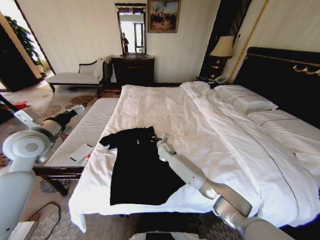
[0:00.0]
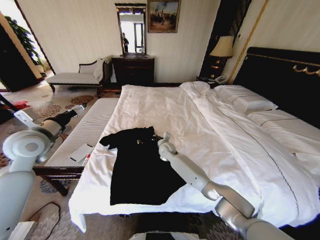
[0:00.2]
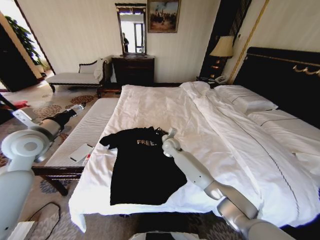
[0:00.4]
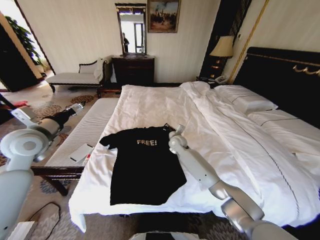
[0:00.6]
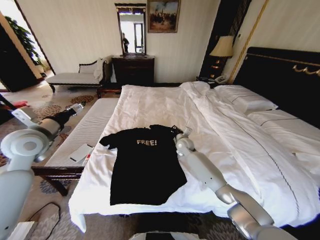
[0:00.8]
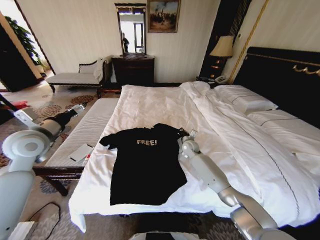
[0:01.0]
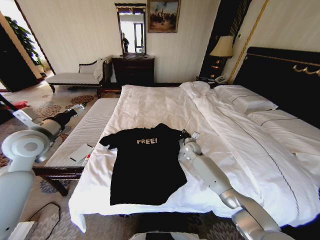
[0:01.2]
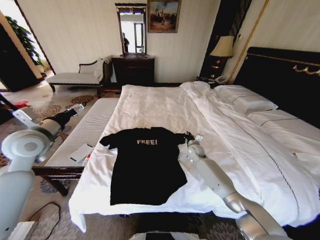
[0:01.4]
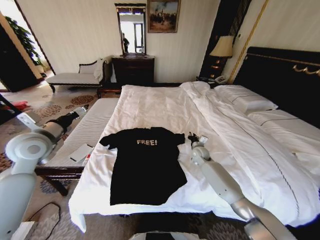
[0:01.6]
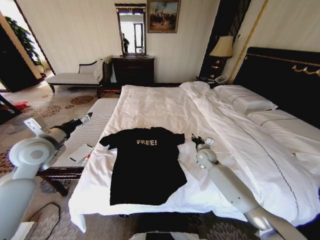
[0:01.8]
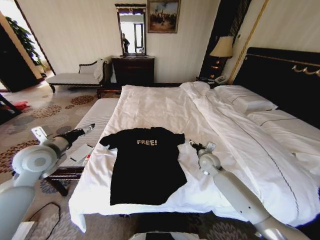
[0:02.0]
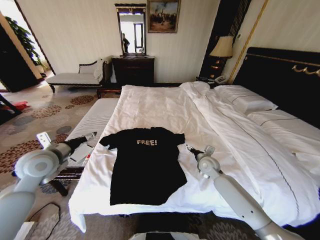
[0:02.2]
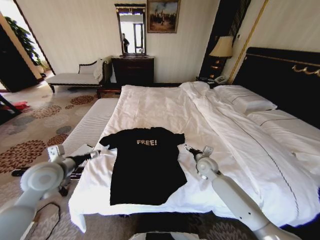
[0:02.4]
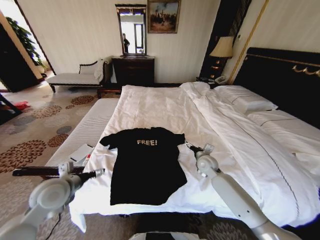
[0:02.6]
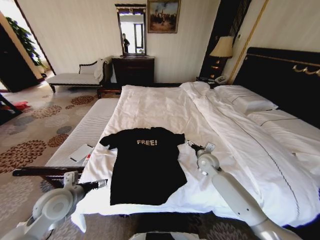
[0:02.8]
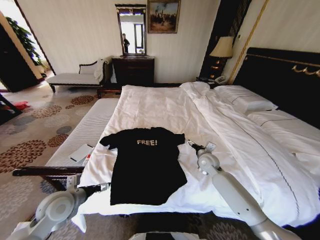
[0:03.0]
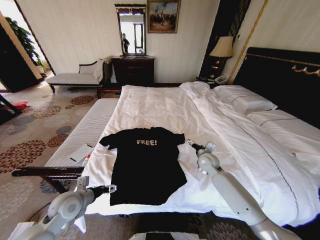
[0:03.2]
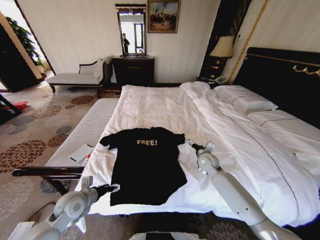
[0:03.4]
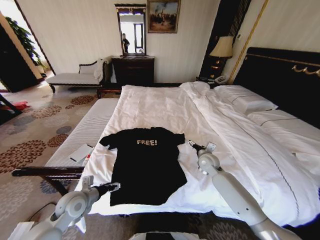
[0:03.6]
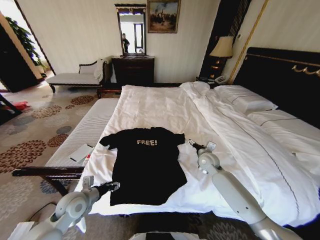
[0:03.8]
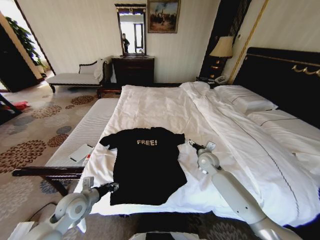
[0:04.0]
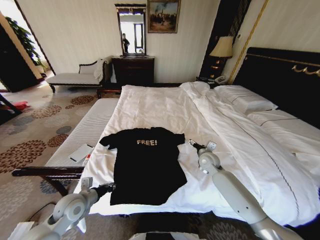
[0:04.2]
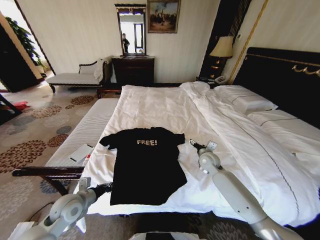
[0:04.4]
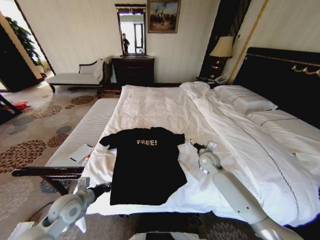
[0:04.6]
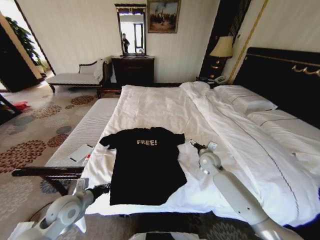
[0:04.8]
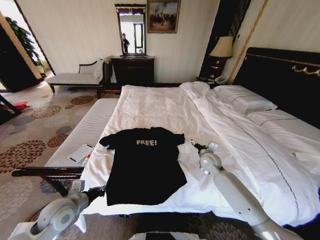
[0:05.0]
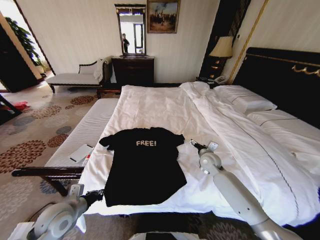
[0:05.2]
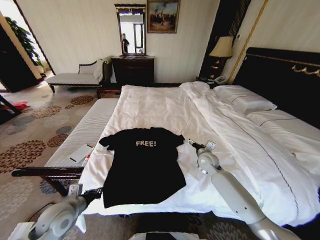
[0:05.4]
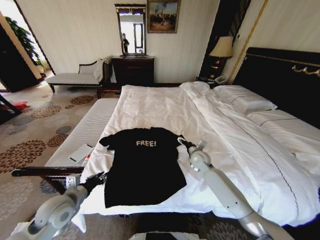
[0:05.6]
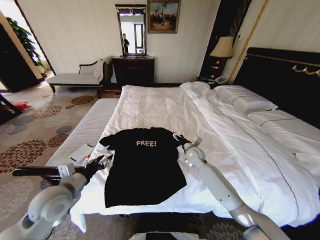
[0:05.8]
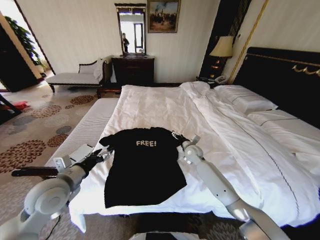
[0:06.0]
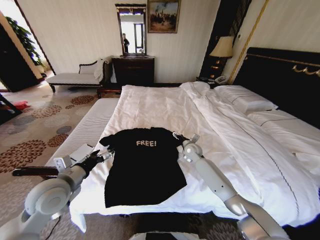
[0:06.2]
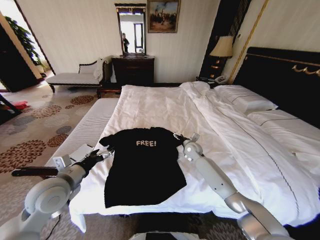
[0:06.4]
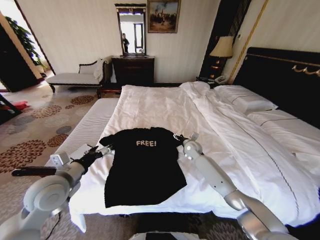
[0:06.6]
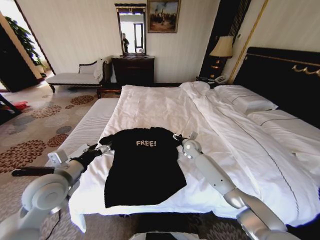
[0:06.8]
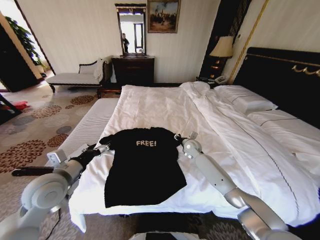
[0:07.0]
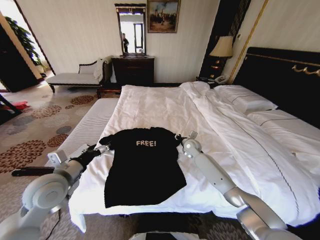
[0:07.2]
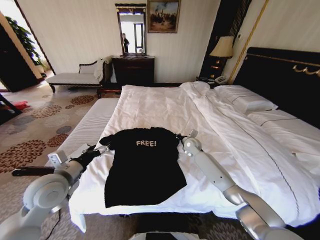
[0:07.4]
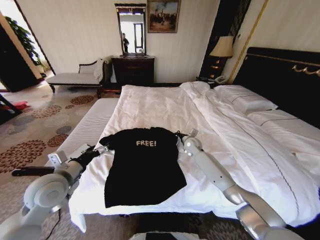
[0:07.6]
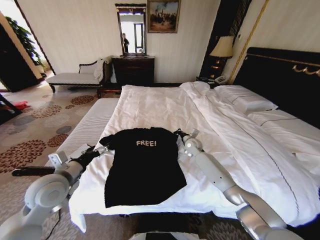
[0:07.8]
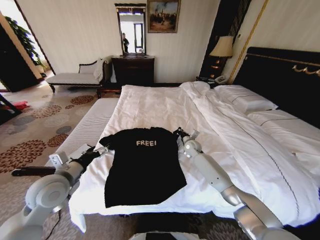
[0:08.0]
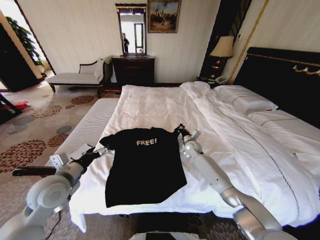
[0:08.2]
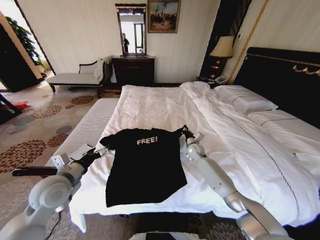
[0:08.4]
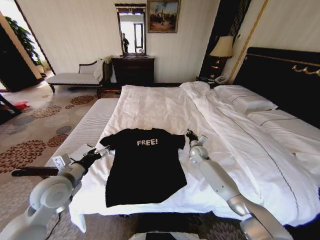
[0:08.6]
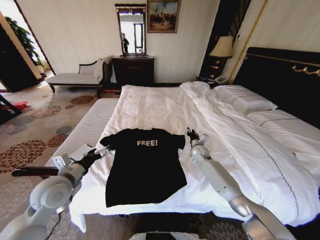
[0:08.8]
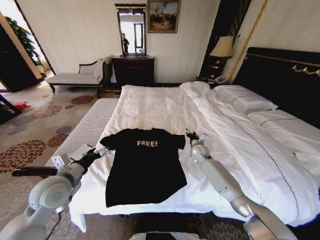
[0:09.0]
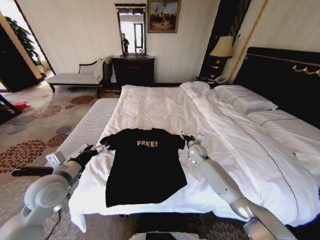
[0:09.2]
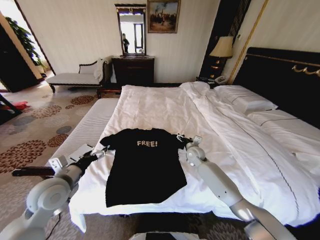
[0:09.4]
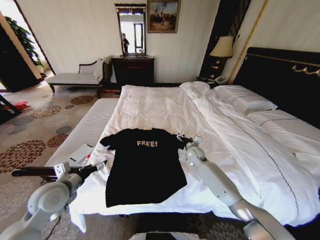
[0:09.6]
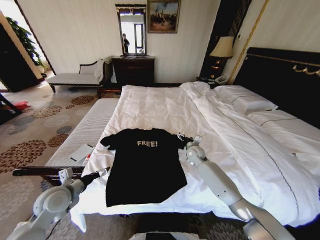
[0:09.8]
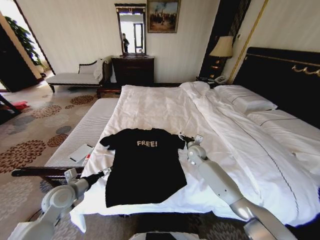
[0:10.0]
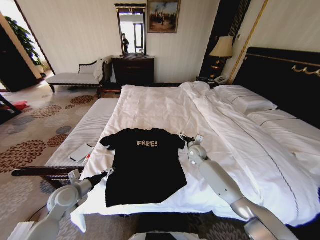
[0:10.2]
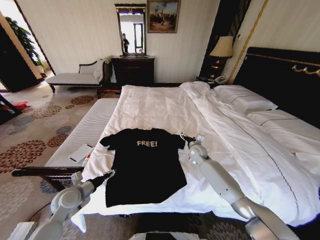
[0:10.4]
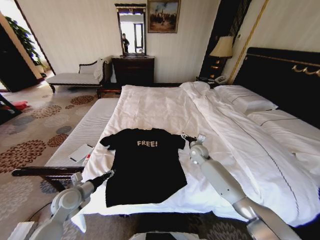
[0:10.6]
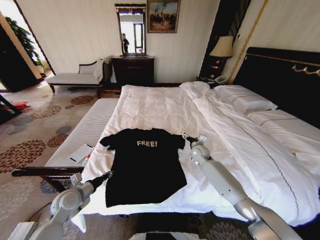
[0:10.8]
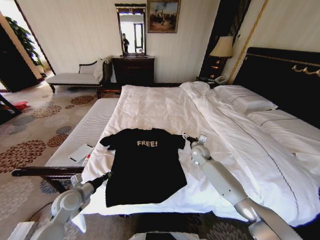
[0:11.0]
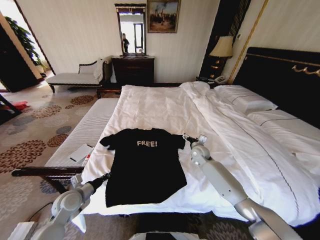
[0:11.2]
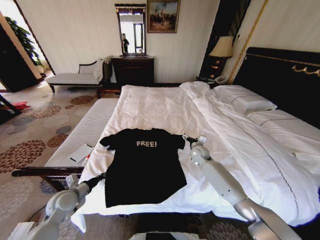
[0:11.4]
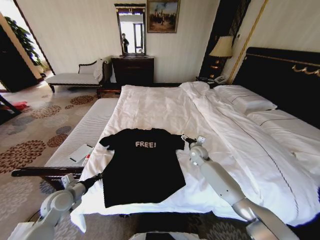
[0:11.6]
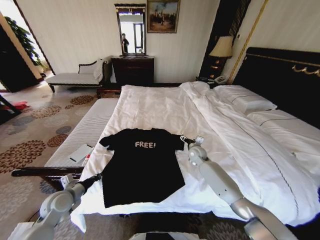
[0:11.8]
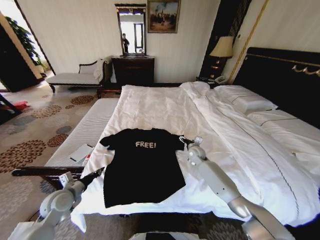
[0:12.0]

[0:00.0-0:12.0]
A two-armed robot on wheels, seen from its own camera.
Task of the whole recording: Fold the clothes on the bed.
0:00.0 to 0:01.6: The right gripper is displaced to the right by about 20 cm.
0:01.6 to 0:03.0: The left gripper heads downward and backward, covering some 20 cm; the right gripper heads backward, covering some 5 cm, and opens its fingers.
0:03.0 to 0:04.4: The left gripper closes up.
0:04.4 to 0:06.0: The right gripper travels to the left and forward by some 10 cm; the left gripper is displaced upward by some 10 cm, and opens.
0:06.0 to 0:07.6: The right gripper closes.
0:07.6 to 0:09.0: The right gripper shifts by some 5 cm, and opens its fingers.
0:09.0 to 0:10.4: The right gripper opens its fingers, while the left gripper goes some 15 cm downward.
0:10.4 to 0:12.0: The left gripper closes up.

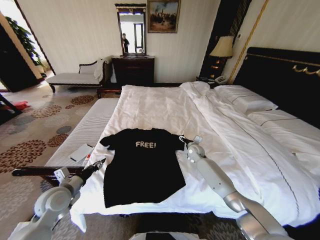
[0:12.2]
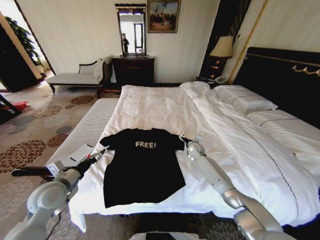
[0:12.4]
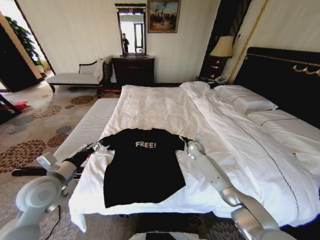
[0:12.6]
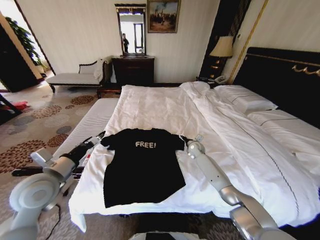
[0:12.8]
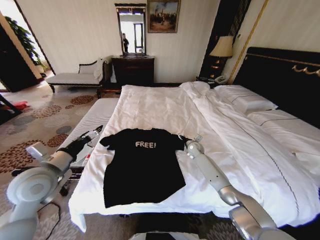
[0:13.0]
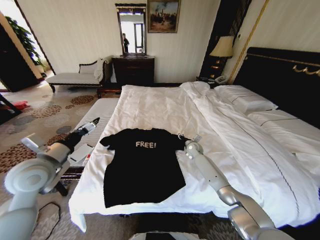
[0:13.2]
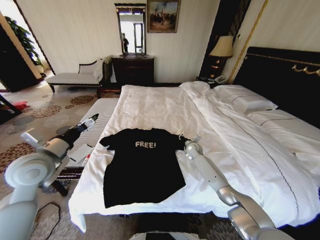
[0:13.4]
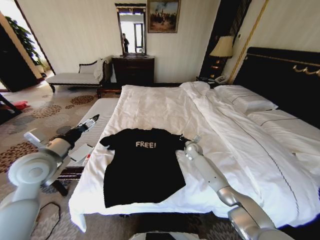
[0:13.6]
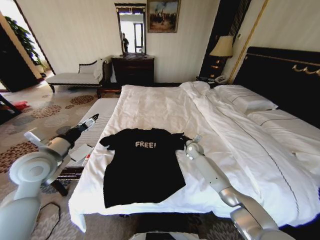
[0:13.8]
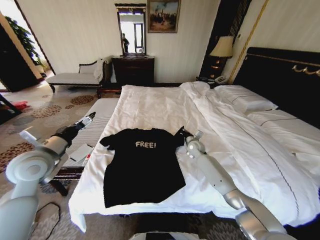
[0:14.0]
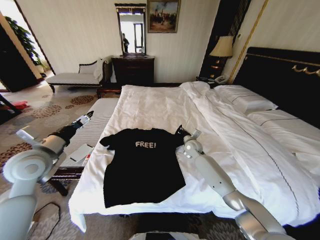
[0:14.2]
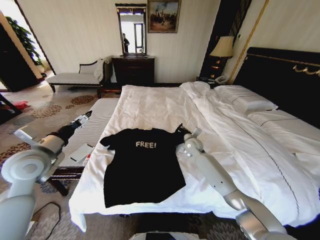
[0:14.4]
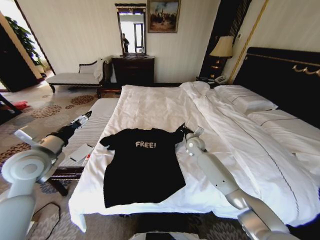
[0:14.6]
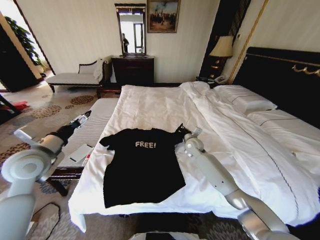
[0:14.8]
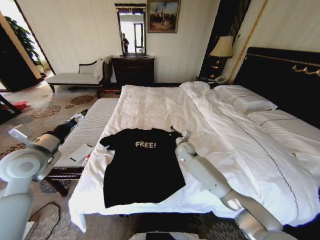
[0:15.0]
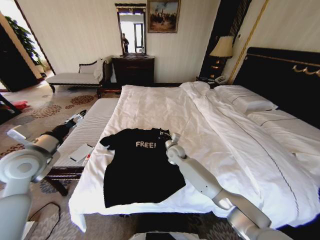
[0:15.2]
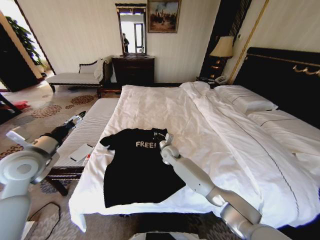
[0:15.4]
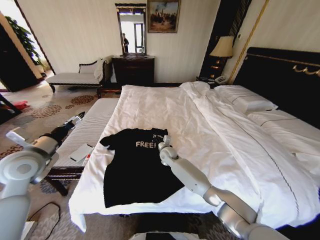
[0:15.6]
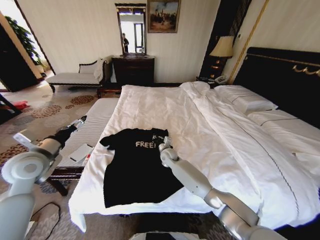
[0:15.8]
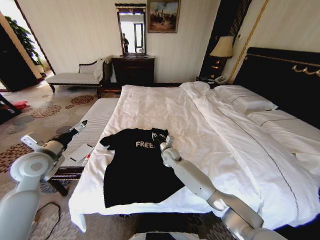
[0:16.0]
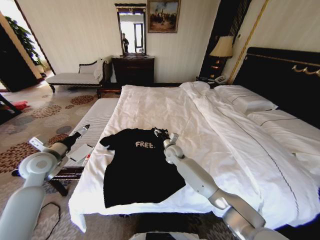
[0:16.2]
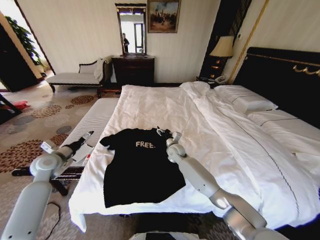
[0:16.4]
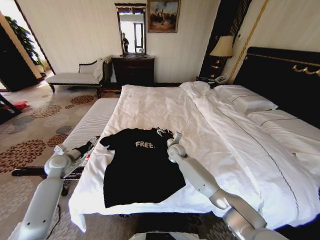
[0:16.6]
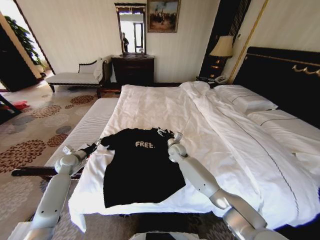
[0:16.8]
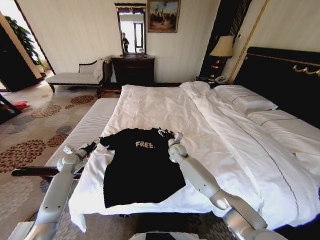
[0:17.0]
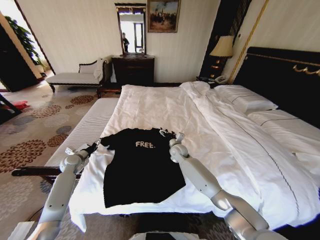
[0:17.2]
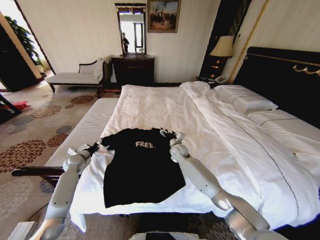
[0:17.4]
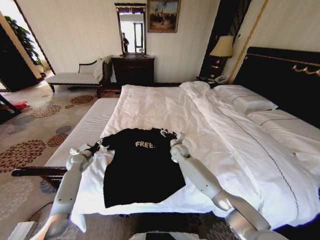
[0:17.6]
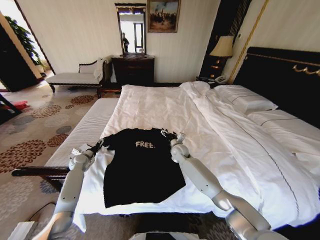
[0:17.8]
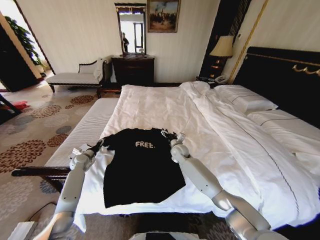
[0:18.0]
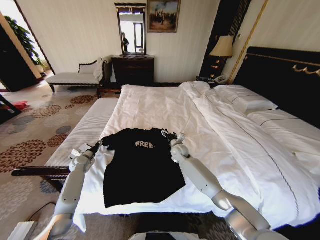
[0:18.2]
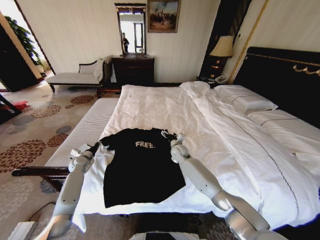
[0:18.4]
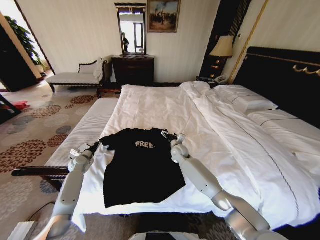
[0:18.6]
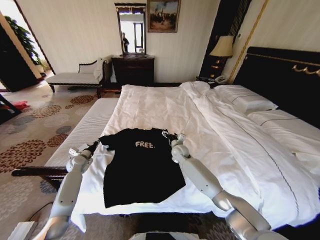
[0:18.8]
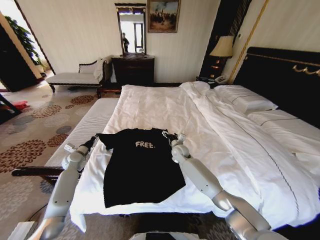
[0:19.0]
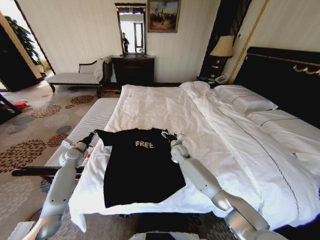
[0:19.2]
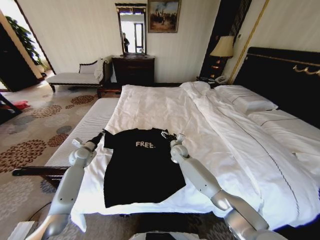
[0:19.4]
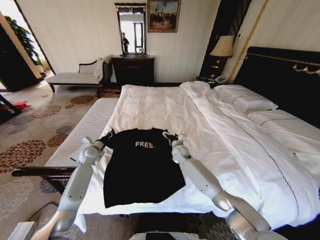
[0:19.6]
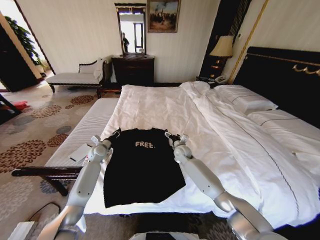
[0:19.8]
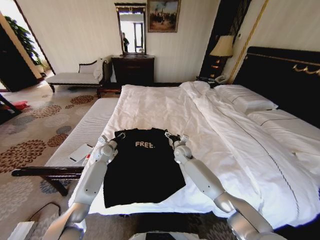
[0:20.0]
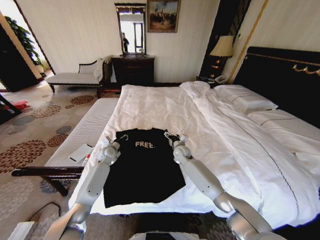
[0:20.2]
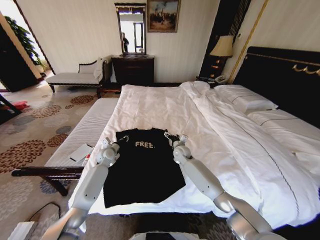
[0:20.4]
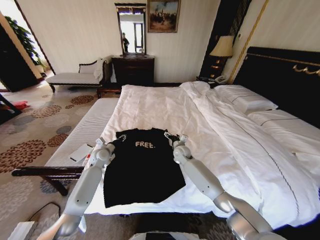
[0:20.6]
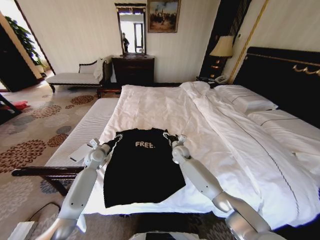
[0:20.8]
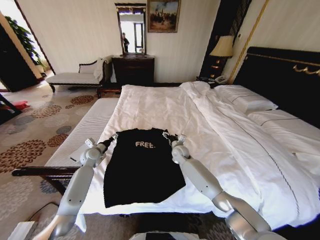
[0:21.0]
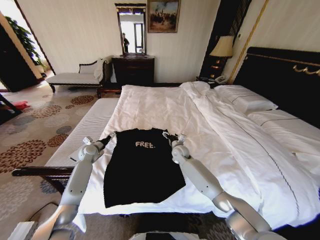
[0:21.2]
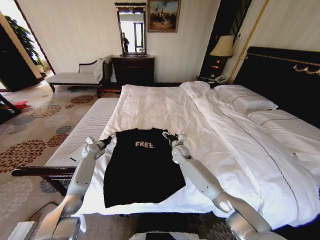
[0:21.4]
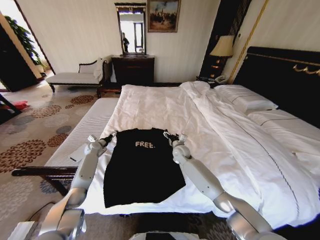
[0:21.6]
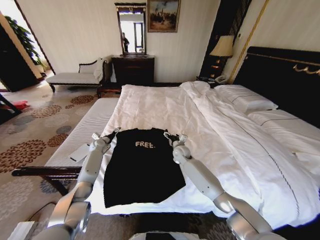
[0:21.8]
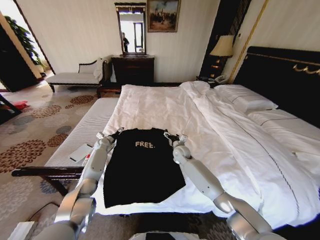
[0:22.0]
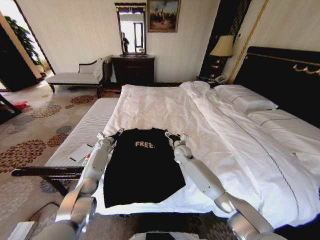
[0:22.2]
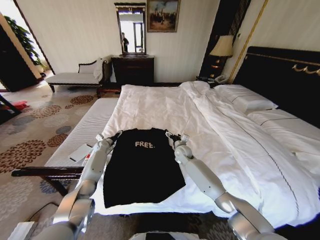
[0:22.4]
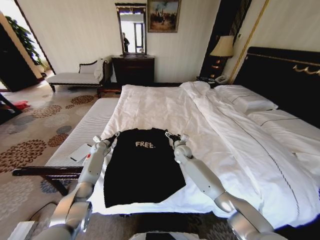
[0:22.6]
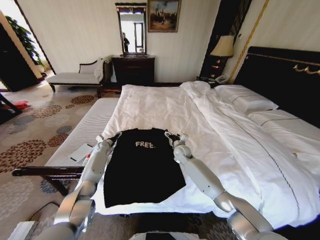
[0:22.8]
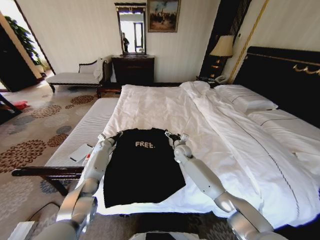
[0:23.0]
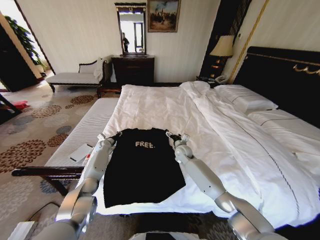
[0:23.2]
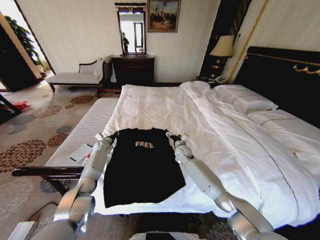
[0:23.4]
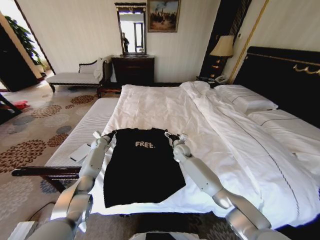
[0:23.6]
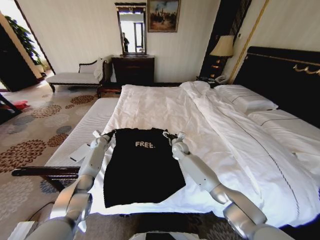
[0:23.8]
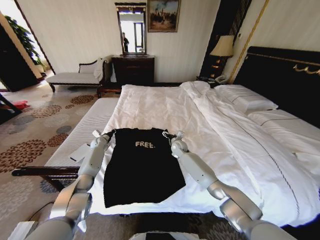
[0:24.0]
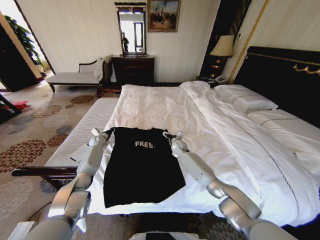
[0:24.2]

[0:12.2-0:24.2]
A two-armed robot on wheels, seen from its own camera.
Task of the whole recording: Fold the clothes on the bed.
0:12.2 to 0:13.8: The right gripper closes. The left gripper travels upward by roughly 15 cm, and opens its fingers.
0:13.8 to 0:15.2: The right gripper goes about 15 cm to the left.
0:15.2 to 0:16.6: The left gripper is displaced downward and forward by approximately 20 cm; the right gripper opens up.
0:16.6 to 0:18.2: The left gripper moves downward and forward, some 10 cm, and closes up.
0:18.2 to 0:19.8: The left gripper moves to the right and upward, about 10 cm, and closes up.
0:19.8 to 0:21.2: The left gripper travels to the left by some 5 cm, and opens up.
0:21.2 to 0:22.6: The left gripper heads forward and downward, covering about 10 cm.
0:22.6 to 0:24.2: The right gripper changes place by about 5 cm, while the left gripper closes its fingers.
